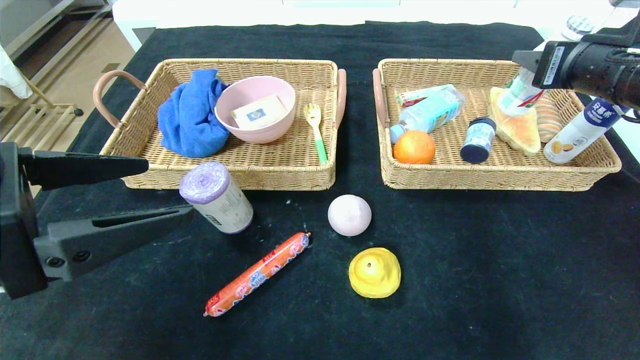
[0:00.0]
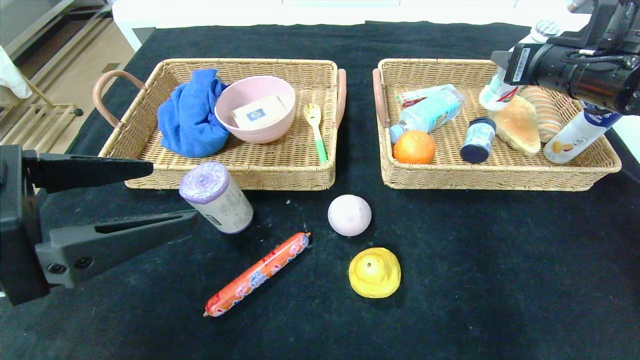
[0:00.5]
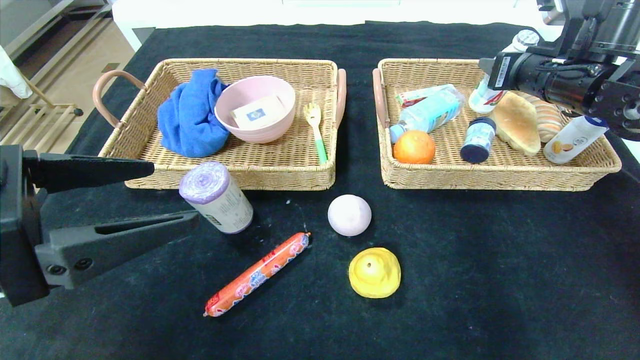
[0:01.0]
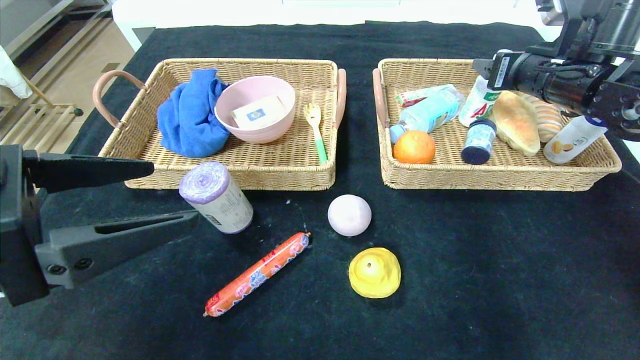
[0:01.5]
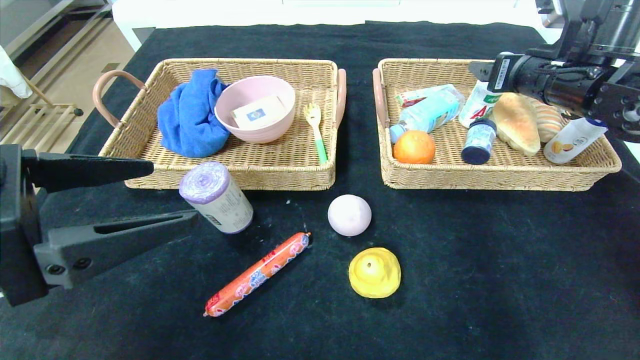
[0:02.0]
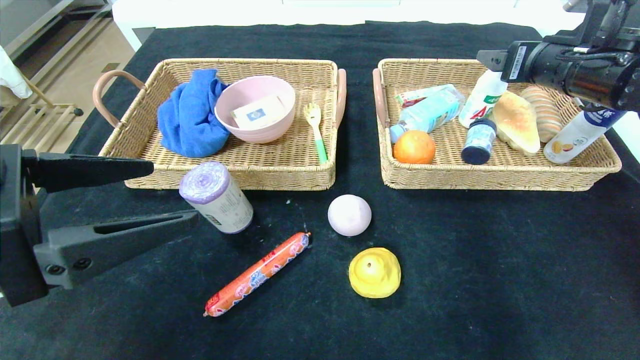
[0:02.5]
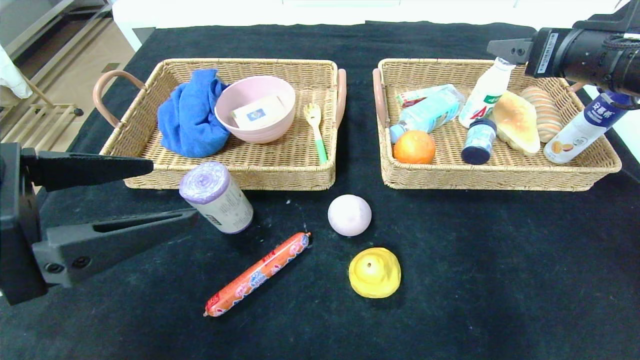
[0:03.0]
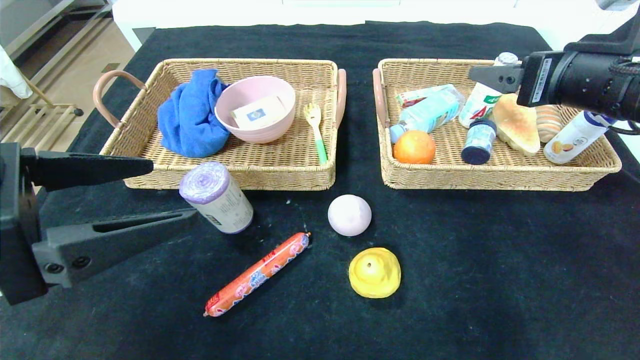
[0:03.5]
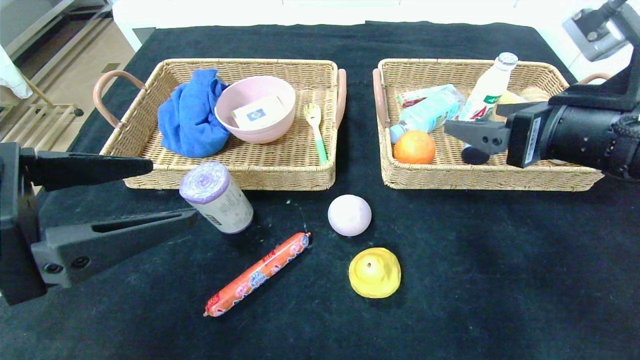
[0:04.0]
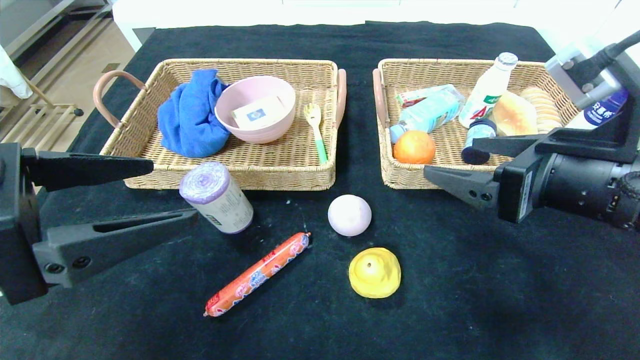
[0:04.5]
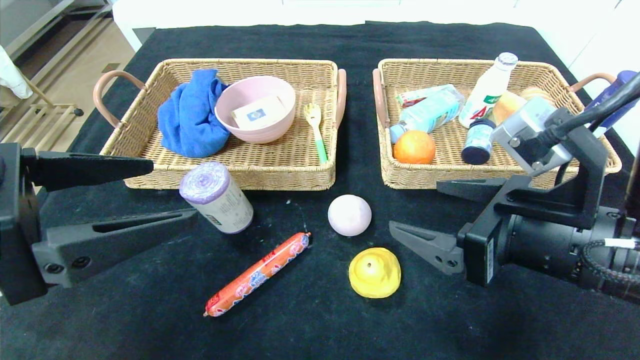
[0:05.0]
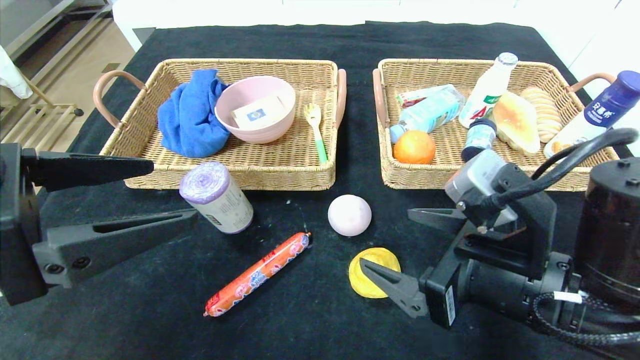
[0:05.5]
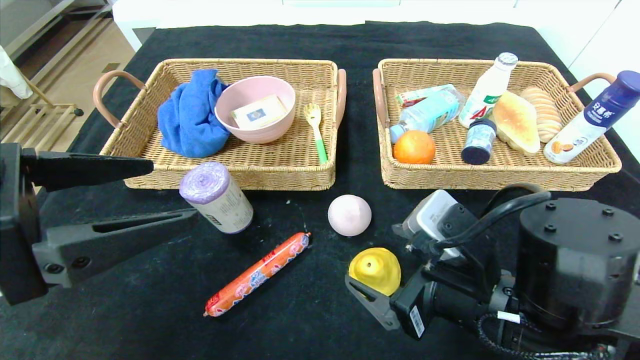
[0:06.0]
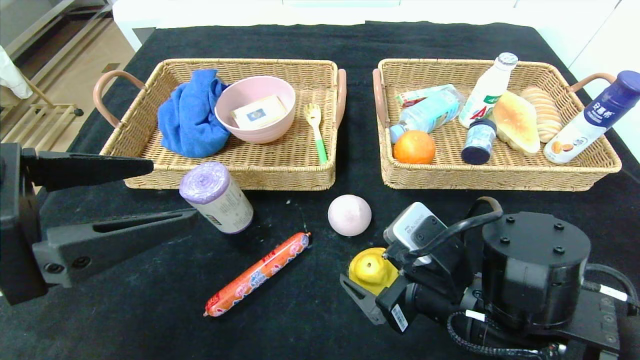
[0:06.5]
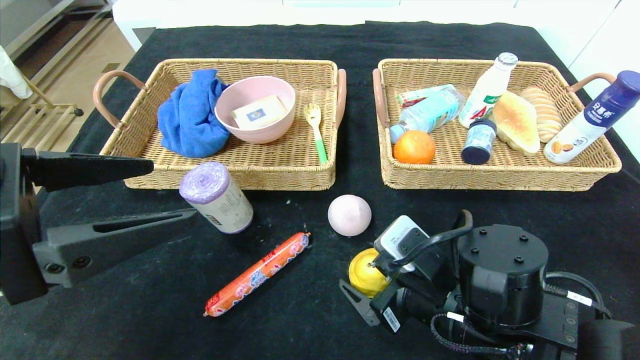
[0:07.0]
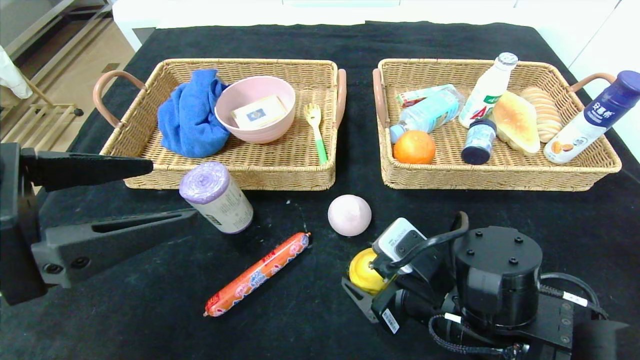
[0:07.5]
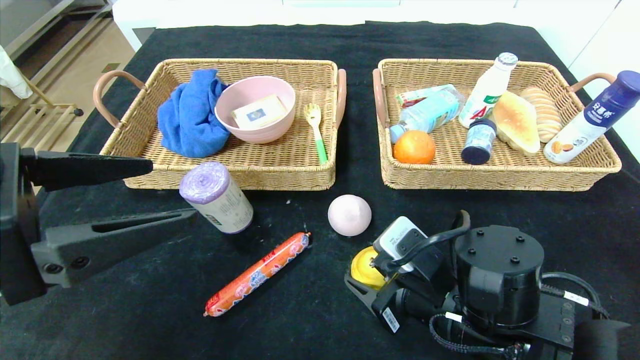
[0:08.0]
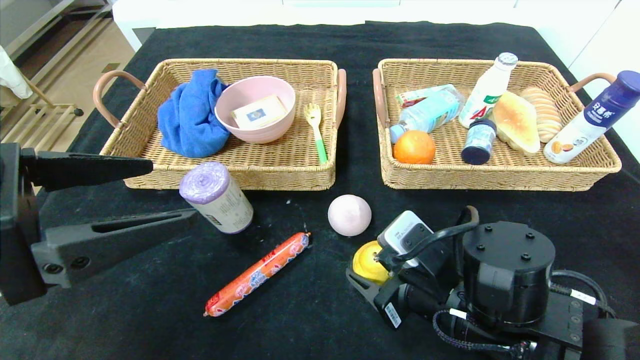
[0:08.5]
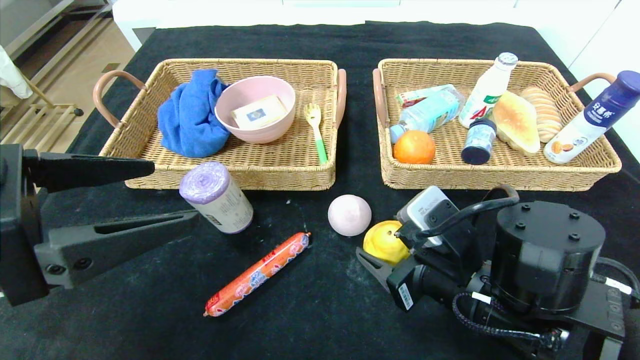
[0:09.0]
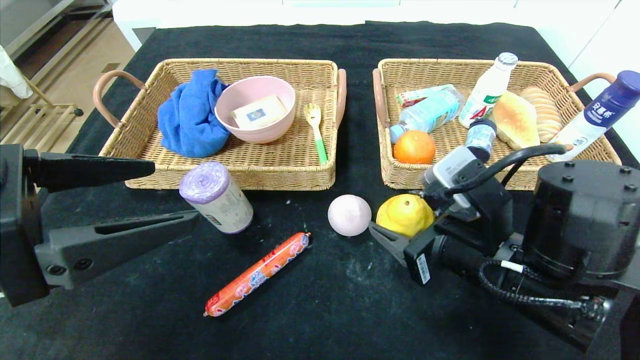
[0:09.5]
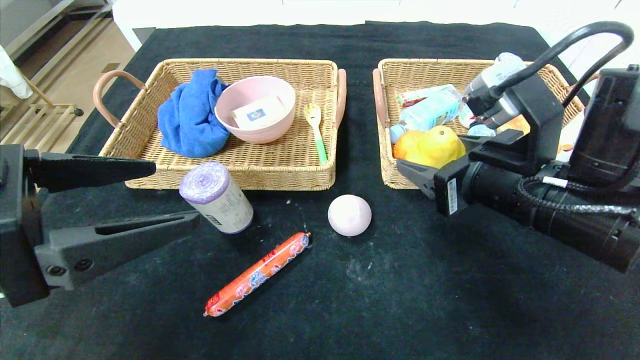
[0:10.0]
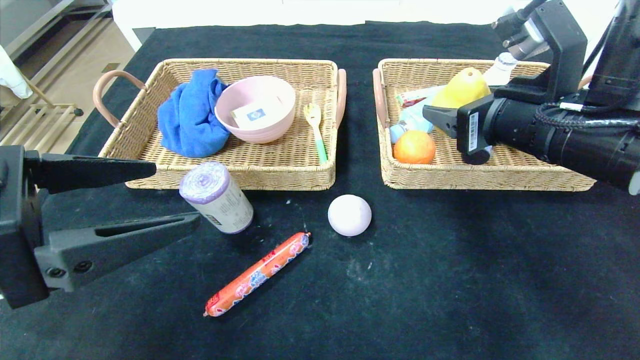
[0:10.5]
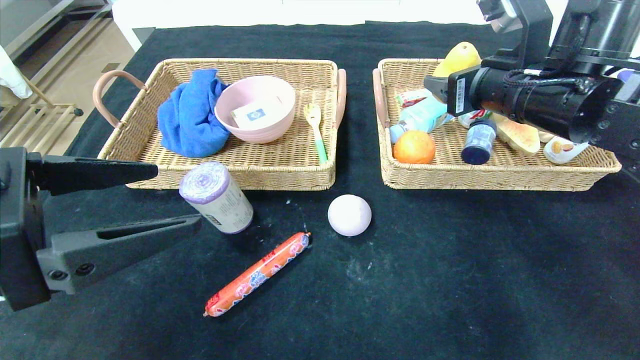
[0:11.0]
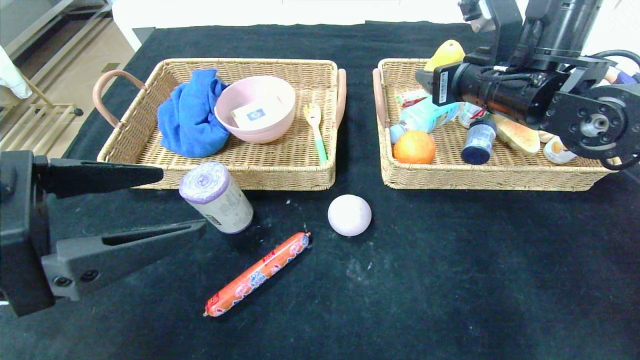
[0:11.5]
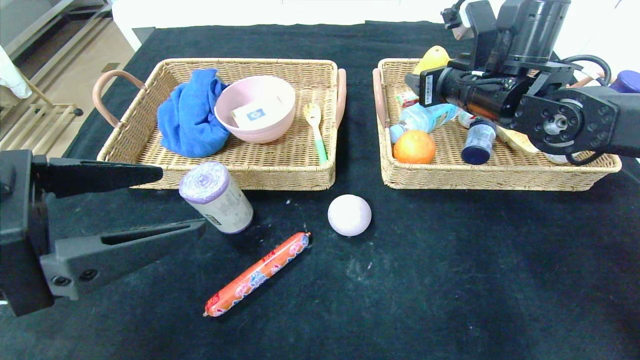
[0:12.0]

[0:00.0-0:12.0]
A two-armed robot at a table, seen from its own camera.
0.0 to 2.0 s: The right gripper is displaced forward by some 5 cm, and opens its fingers.
2.0 to 4.0 s: The right gripper is displaced backward by roughly 15 cm.
4.0 to 6.0 s: The right gripper travels downward and to the left by about 15 cm.
6.0 to 8.0 s: The right gripper changes place by approximately 5 cm.
8.0 to 10.0 s: The right gripper travels upward and to the right by roughly 15 cm.
10.0 to 12.0 s: The right gripper heads forward, covering about 15 cm.

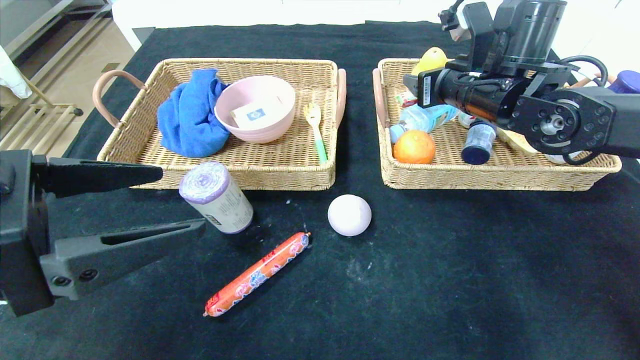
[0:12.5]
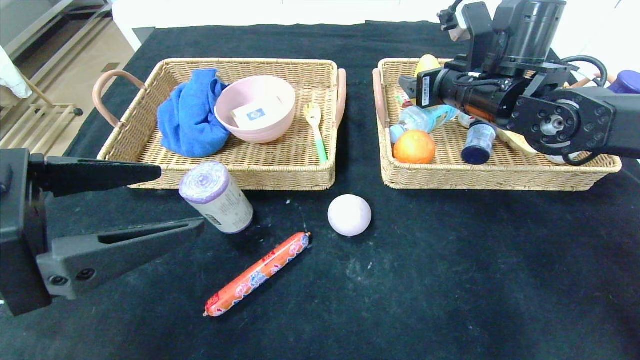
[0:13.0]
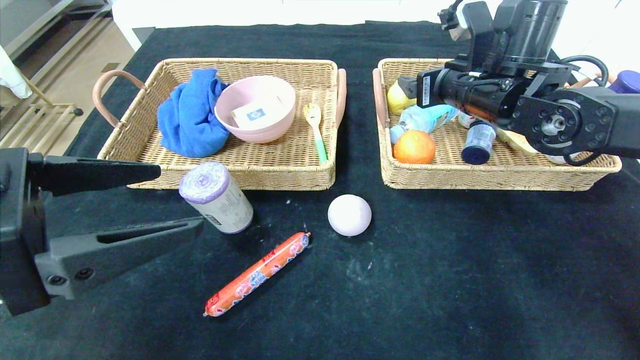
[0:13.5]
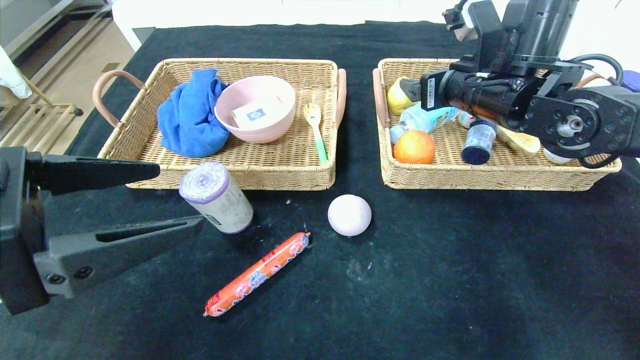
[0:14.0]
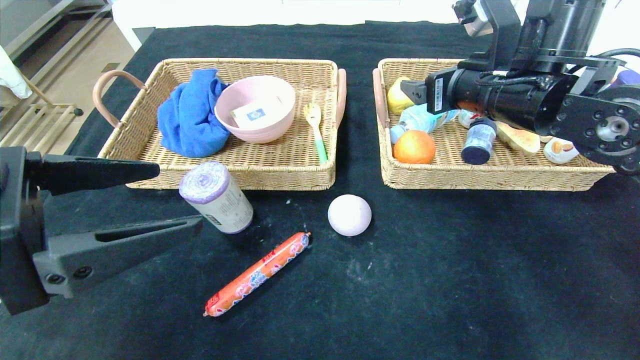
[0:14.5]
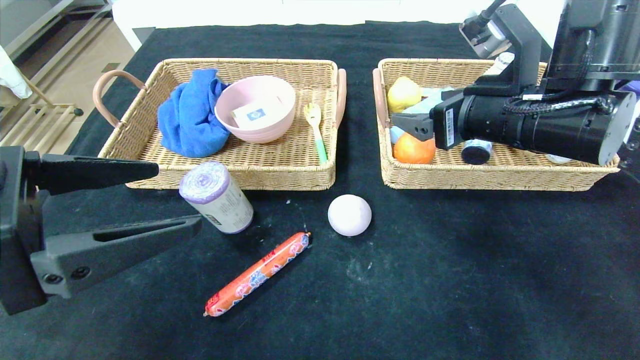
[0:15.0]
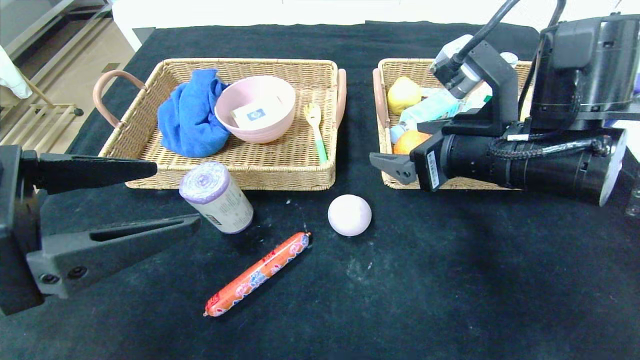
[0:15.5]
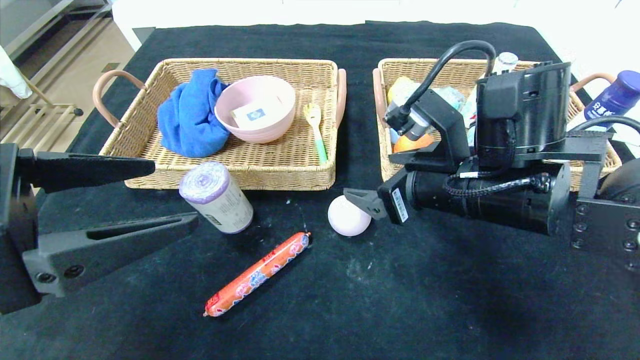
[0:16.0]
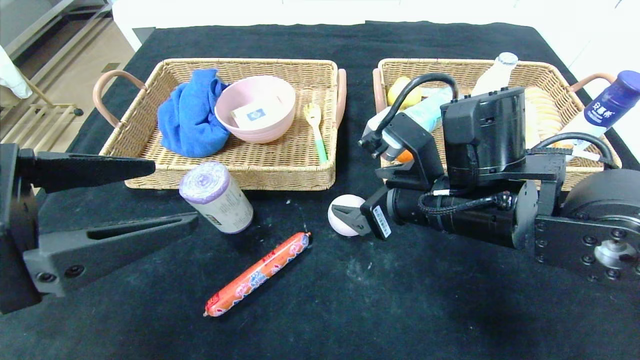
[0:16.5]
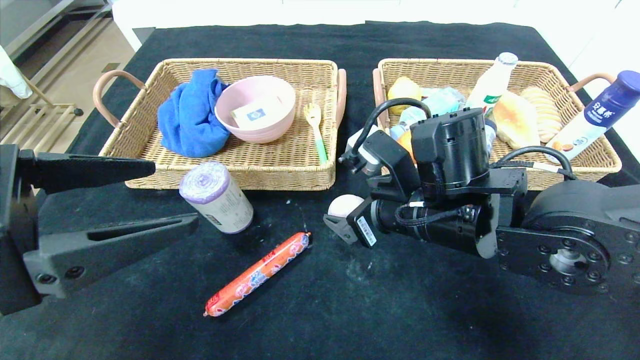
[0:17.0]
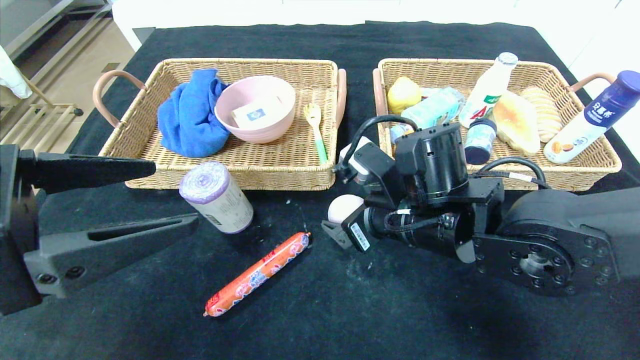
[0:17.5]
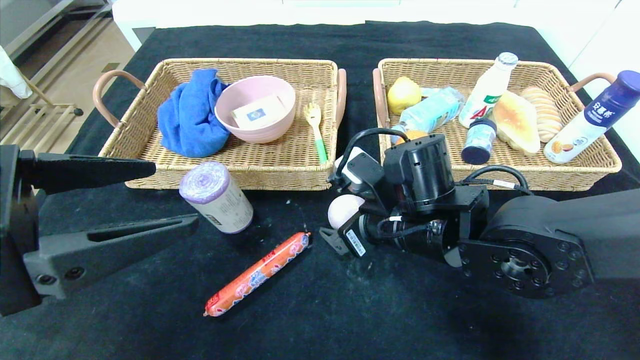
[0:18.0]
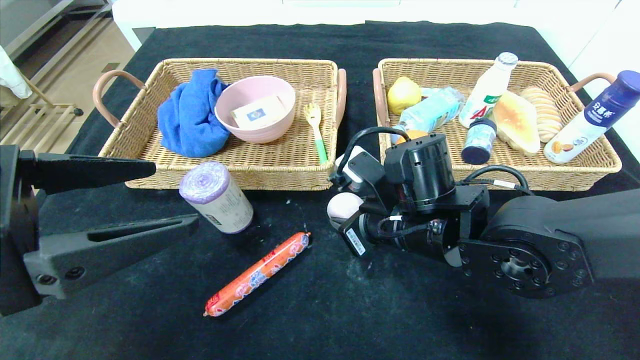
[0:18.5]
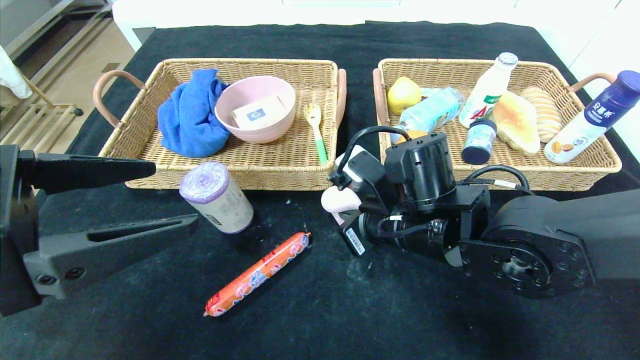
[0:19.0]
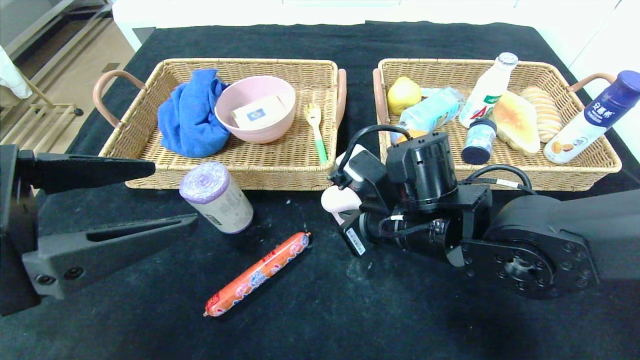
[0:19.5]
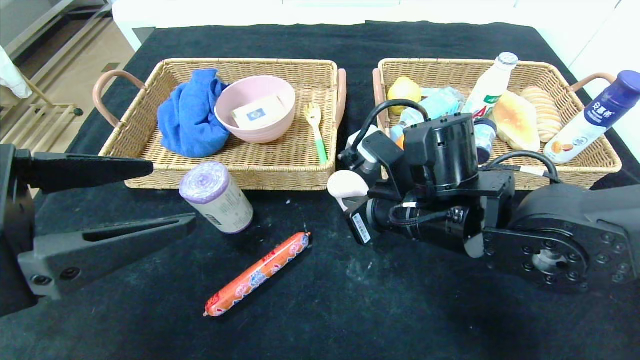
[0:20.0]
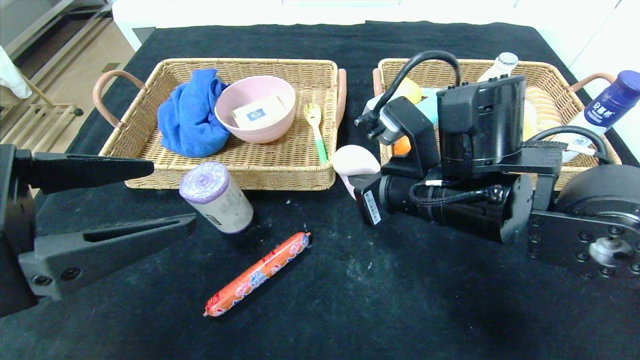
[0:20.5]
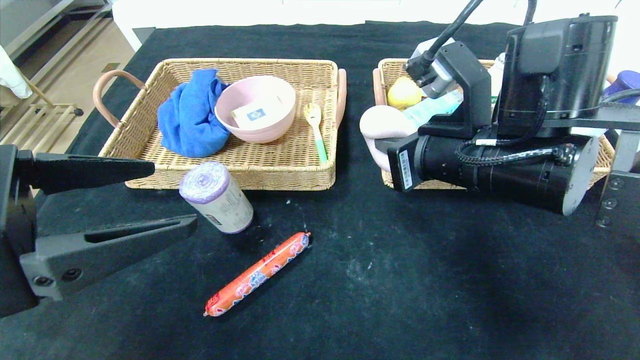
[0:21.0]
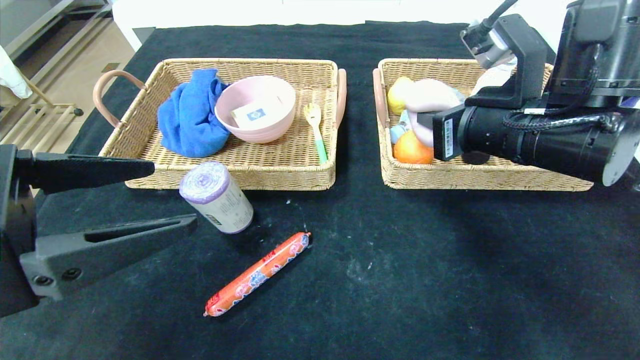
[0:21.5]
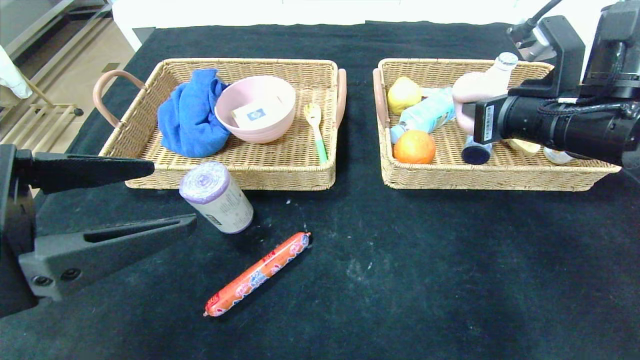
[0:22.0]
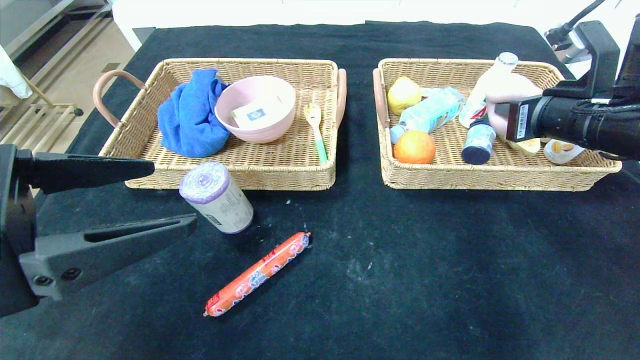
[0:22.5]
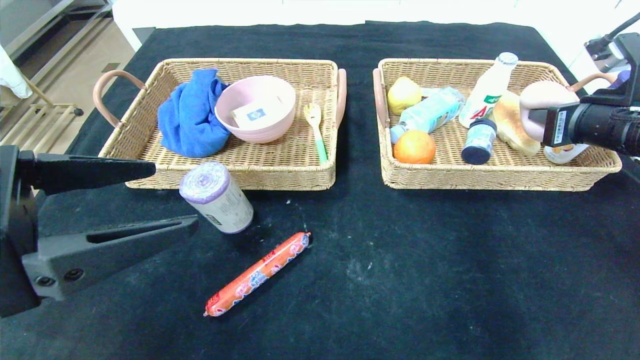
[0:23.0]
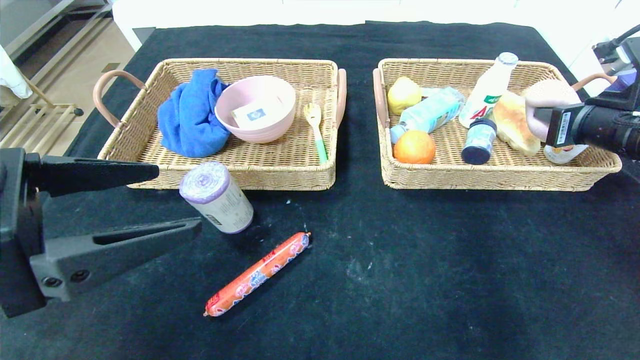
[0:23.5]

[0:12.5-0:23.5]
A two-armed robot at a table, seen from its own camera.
12.5 to 14.5 s: The grippers make only small movements.
14.5 to 16.0 s: The right gripper is displaced backward, downward and to the left by about 10 cm.
16.0 to 18.0 s: The right gripper goes about 5 cm downward.
18.0 to 20.0 s: The right gripper closes.
20.0 to 21.5 s: The right gripper is displaced to the right and upward by about 10 cm.
21.5 to 23.5 s: The right gripper moves to the right, roughly 15 cm.
